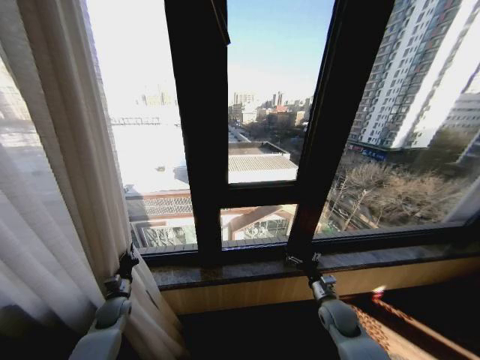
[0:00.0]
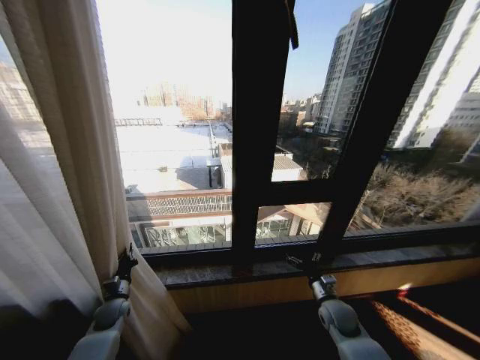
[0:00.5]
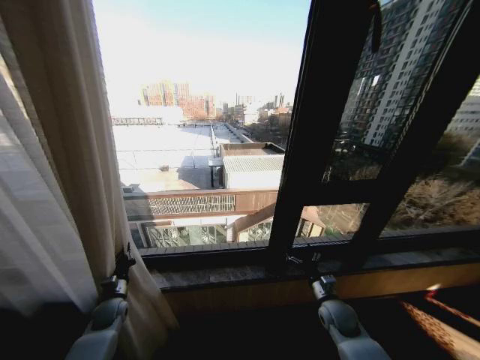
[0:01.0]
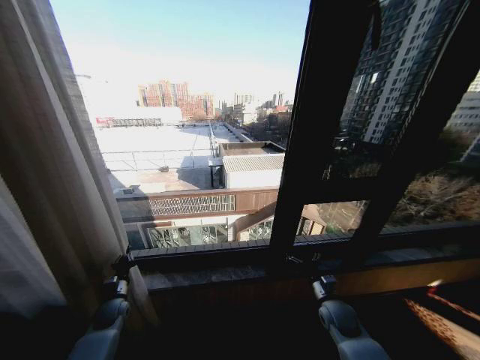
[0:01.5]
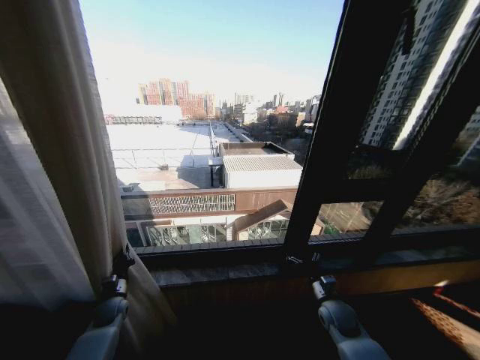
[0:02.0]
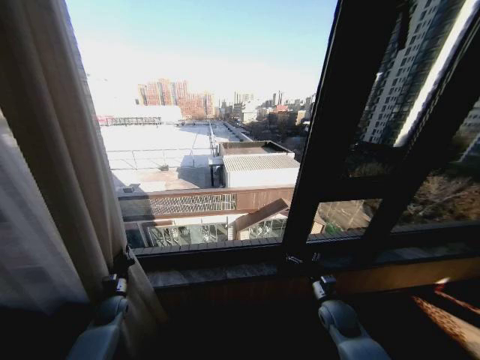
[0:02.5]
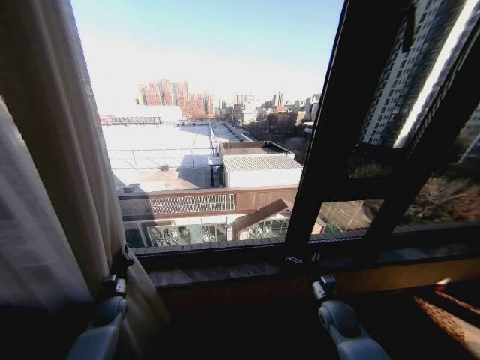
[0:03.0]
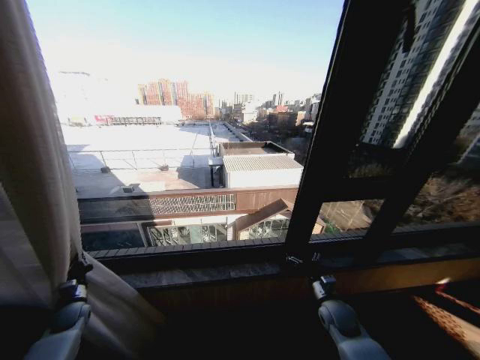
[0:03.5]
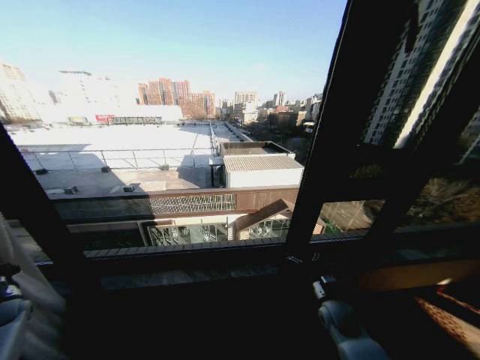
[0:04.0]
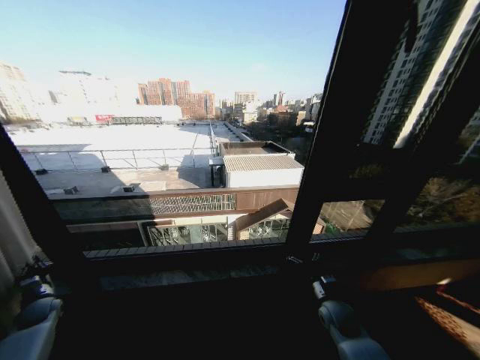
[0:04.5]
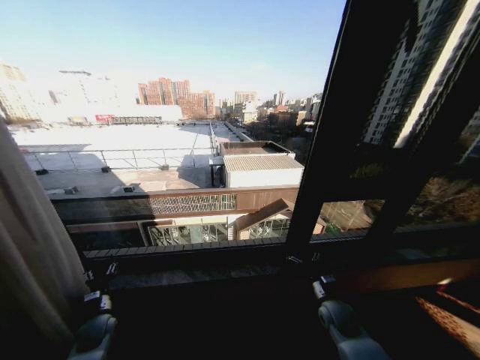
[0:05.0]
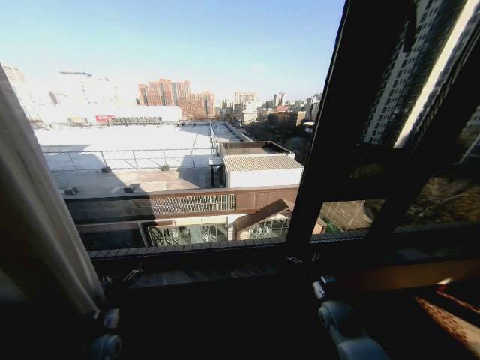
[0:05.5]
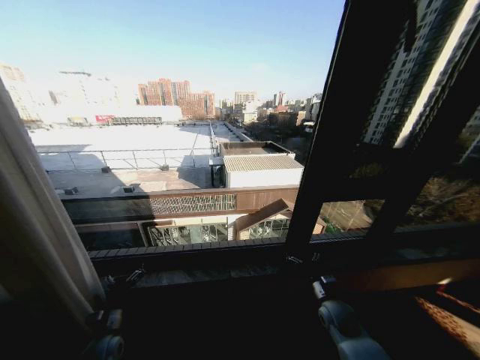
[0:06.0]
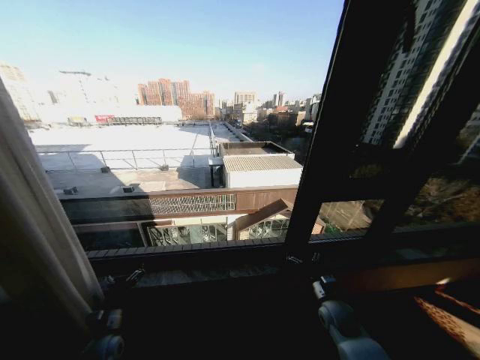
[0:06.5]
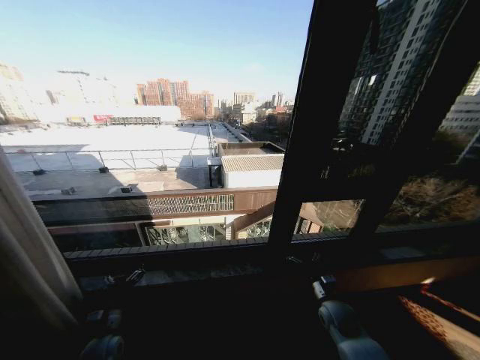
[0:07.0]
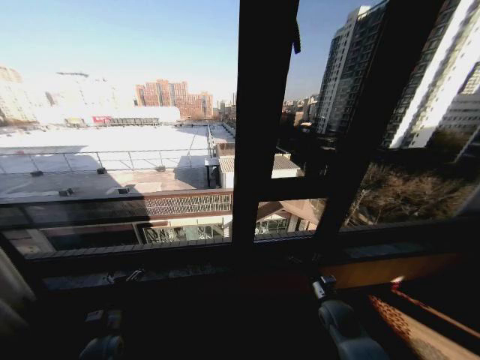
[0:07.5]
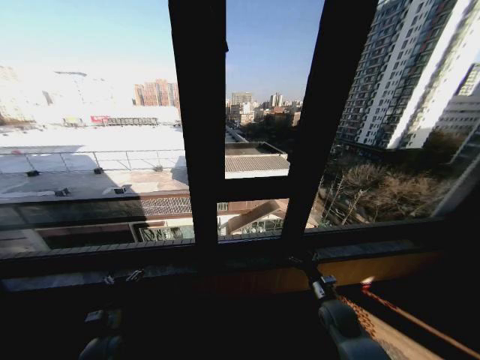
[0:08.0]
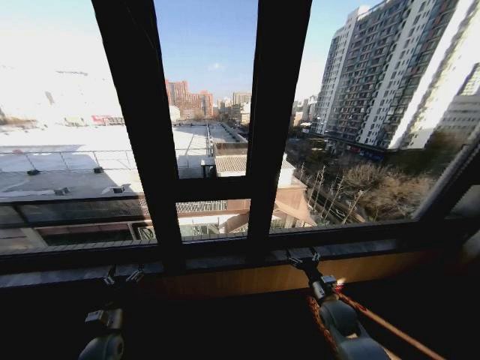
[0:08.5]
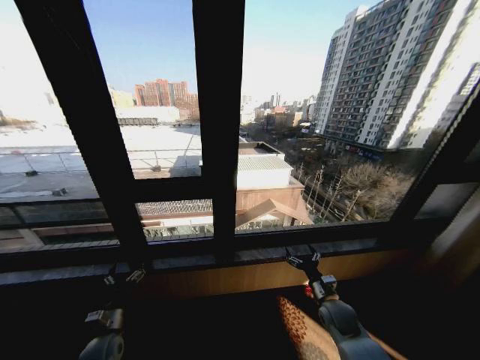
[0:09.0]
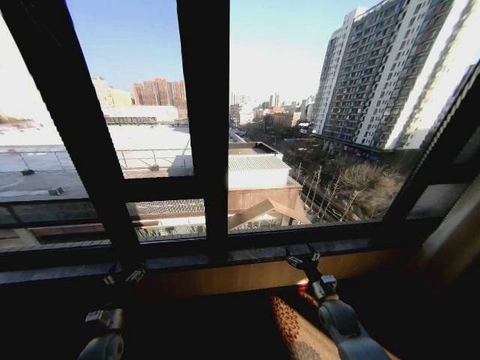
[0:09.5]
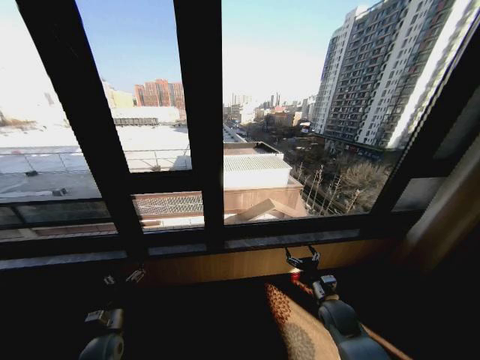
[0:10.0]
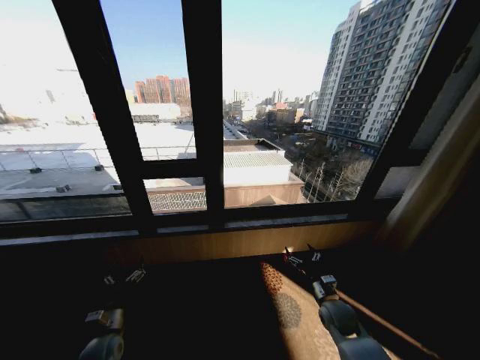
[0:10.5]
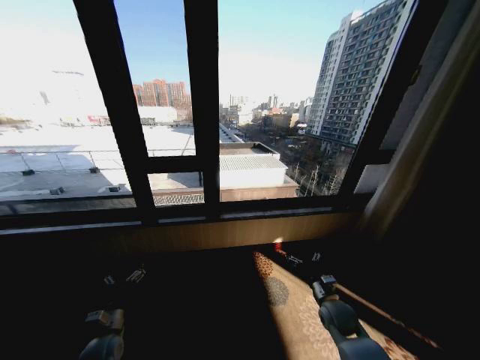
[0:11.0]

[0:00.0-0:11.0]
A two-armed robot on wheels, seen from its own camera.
Task of the whole recording: Open the curtains by pulling them apart, changing their state from closed to fully open.
2.0 to 3.5 s: The left gripper shifts roughly 10 cm to the left.
3.5 to 5.5 s: The left gripper moves to the right and backward, roughly 15 cm, and opens its fingers.

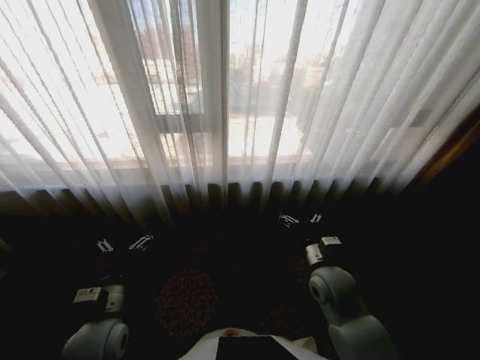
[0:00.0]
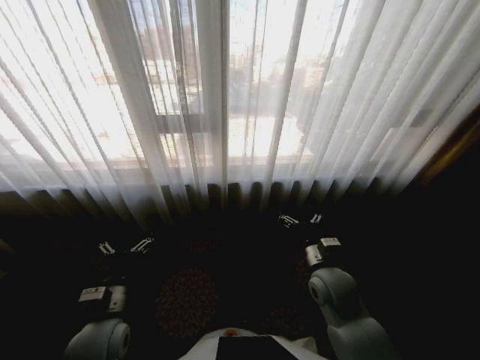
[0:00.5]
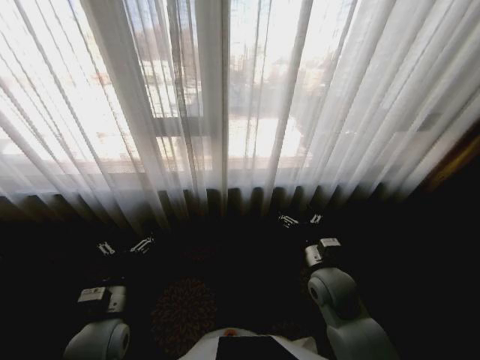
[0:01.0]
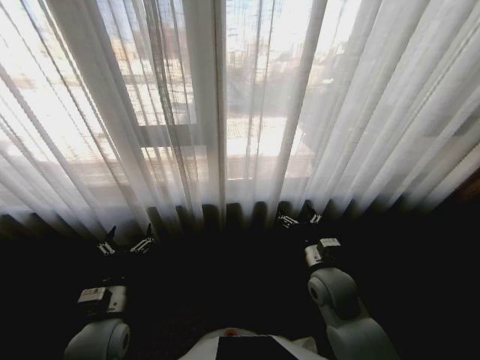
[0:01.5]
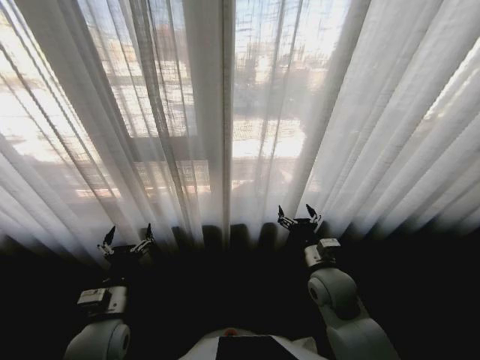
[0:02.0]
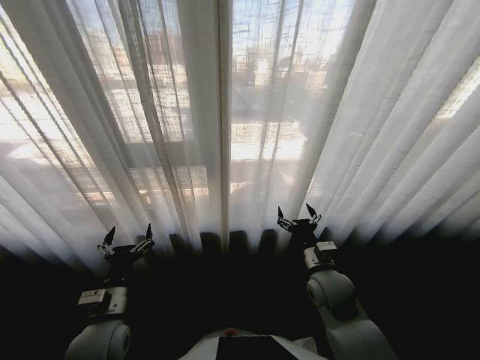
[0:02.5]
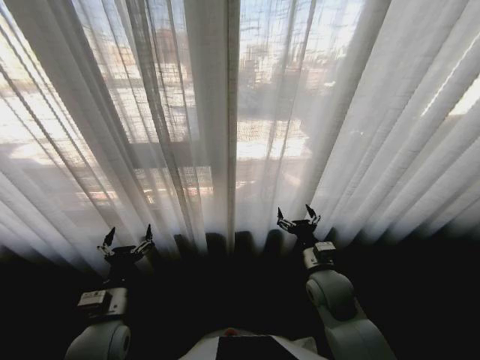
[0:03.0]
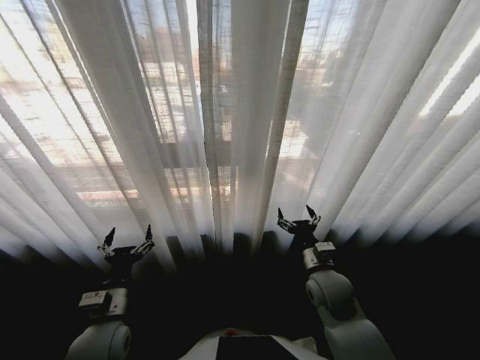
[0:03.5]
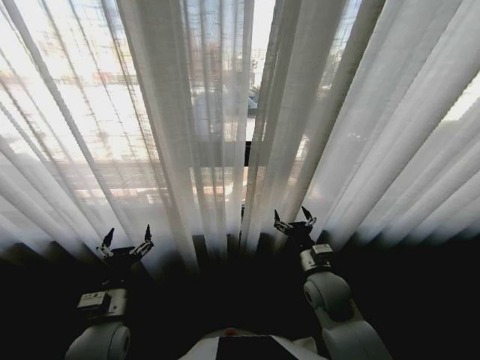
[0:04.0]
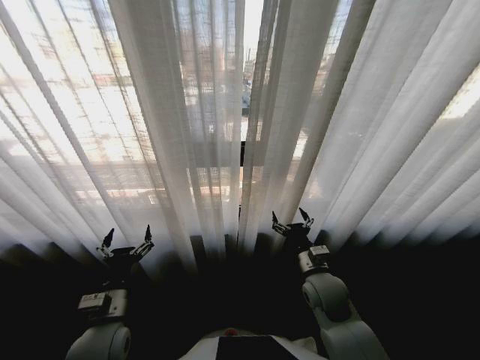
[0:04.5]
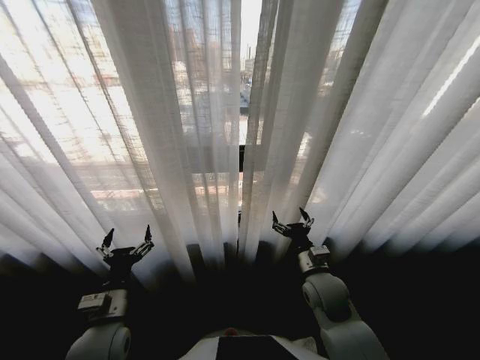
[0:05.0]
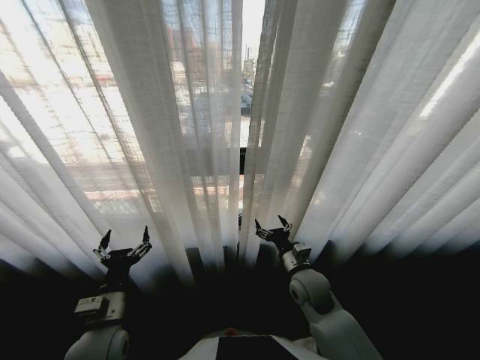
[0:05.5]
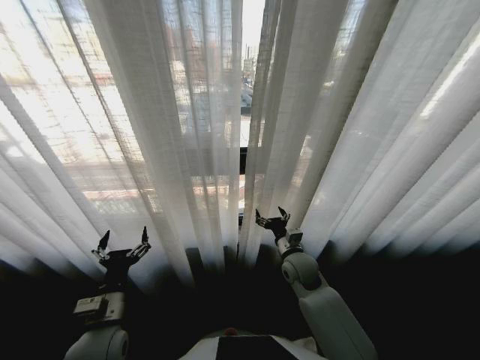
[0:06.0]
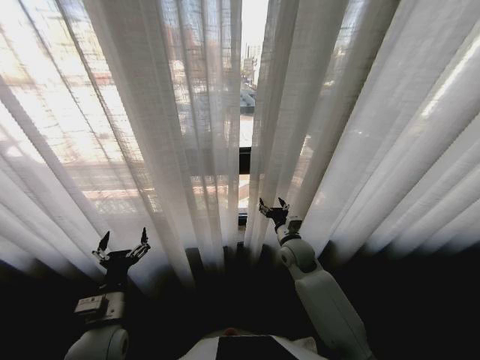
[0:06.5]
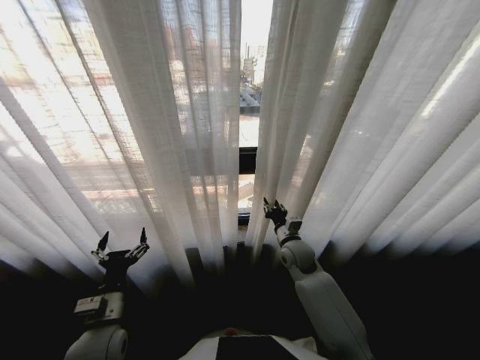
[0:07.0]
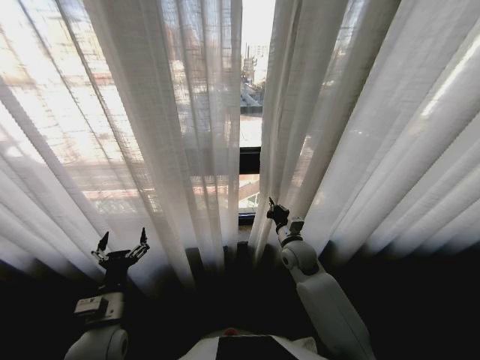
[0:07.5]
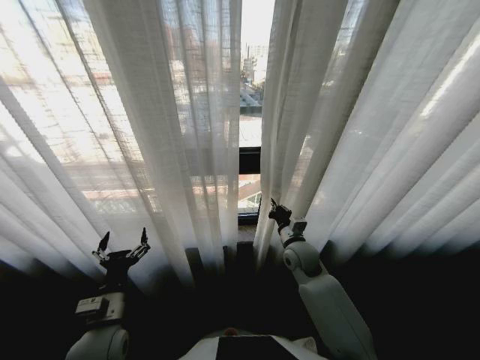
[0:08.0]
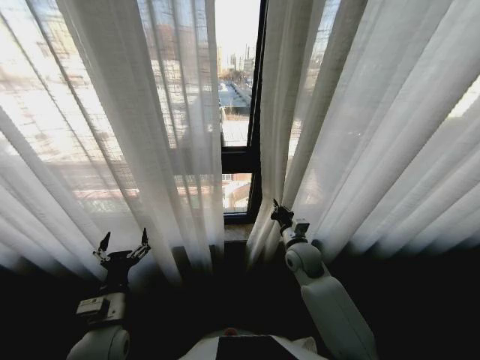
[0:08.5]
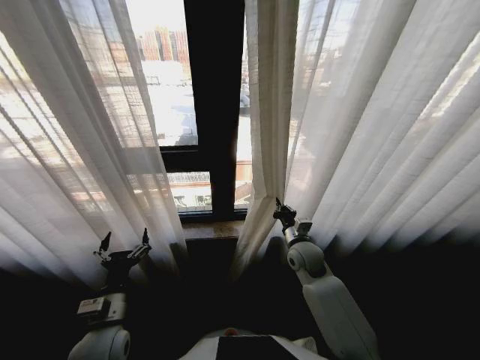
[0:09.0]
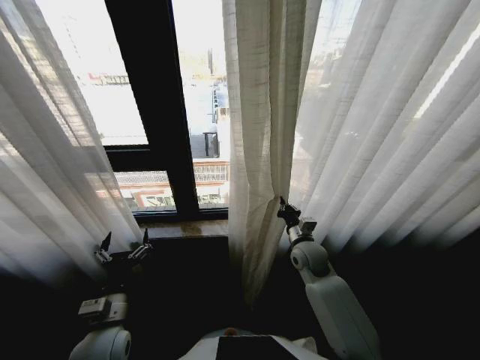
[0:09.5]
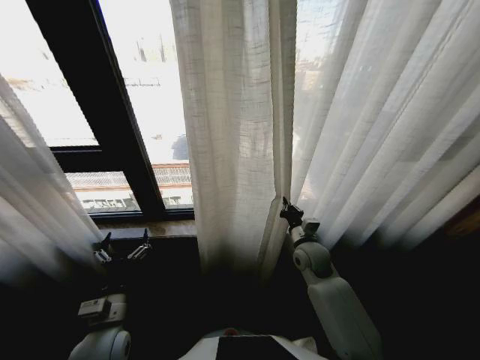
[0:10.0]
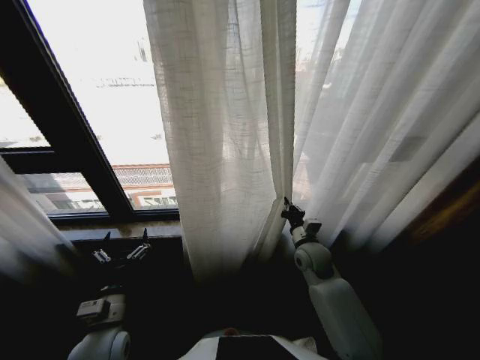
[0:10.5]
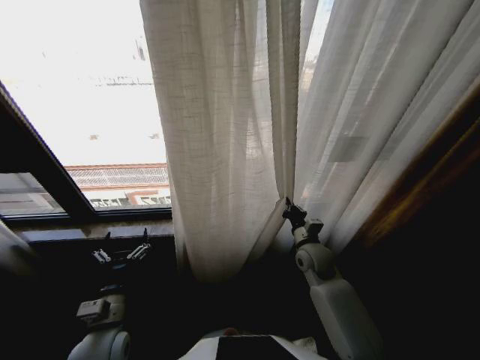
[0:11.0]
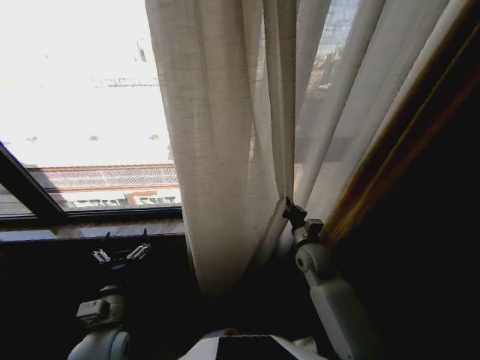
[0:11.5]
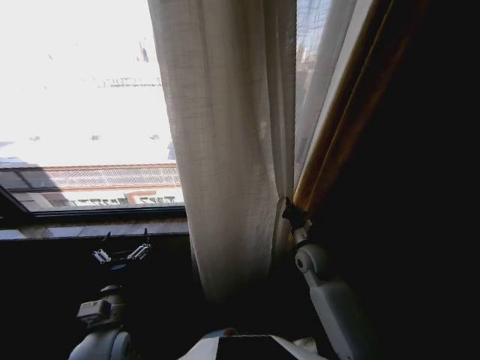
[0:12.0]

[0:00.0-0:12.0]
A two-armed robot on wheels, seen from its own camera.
Task of the whole recording: Open the curtains by pulling them apart, changing their state from closed to fully open.
4.0 to 6.0 s: The right gripper travels forward by about 5 cm.
6.0 to 8.0 s: The right gripper closes.

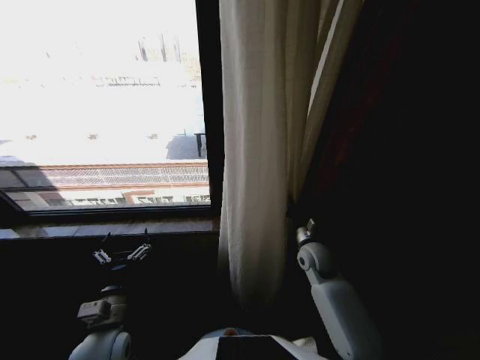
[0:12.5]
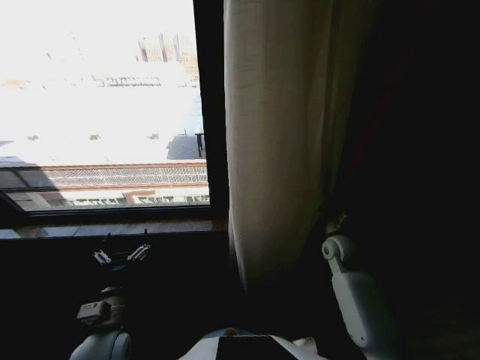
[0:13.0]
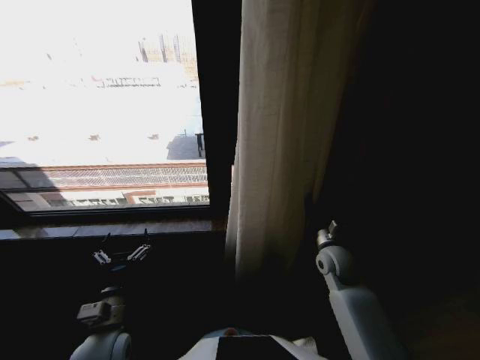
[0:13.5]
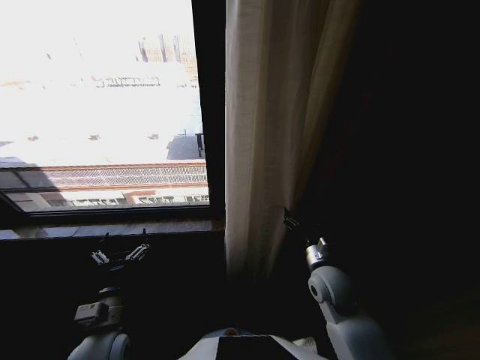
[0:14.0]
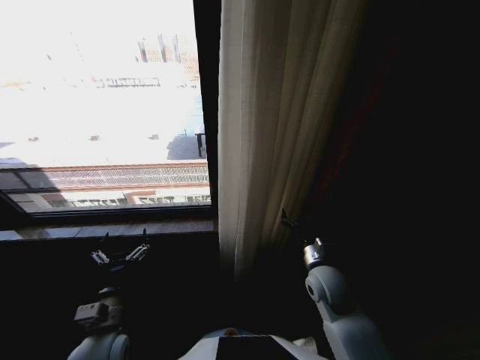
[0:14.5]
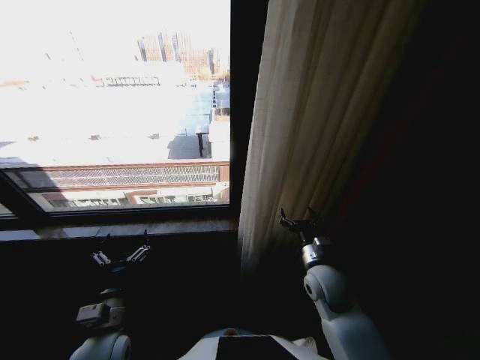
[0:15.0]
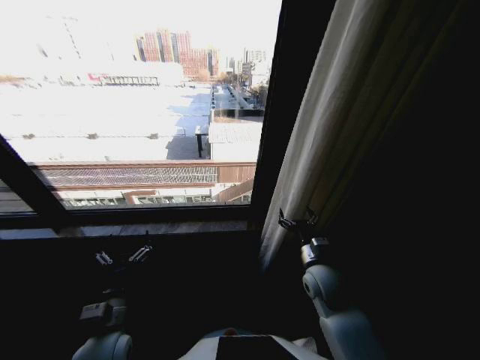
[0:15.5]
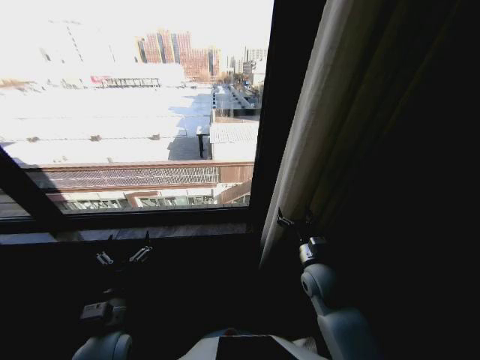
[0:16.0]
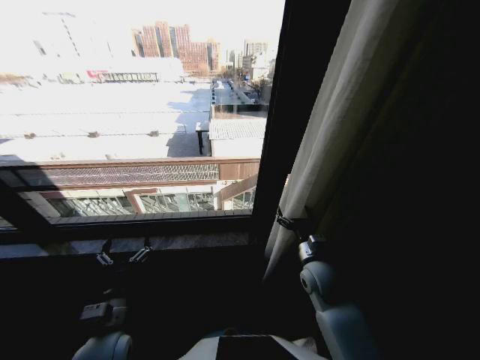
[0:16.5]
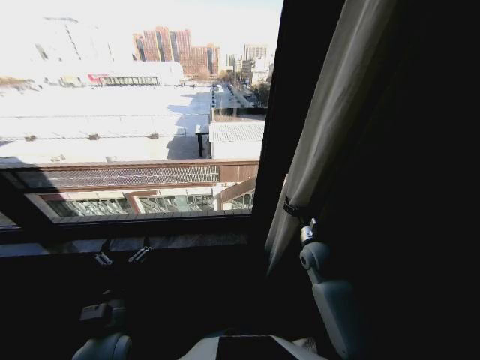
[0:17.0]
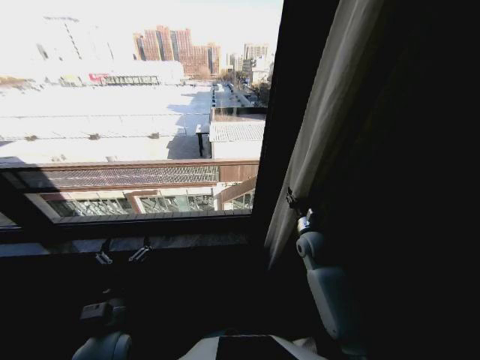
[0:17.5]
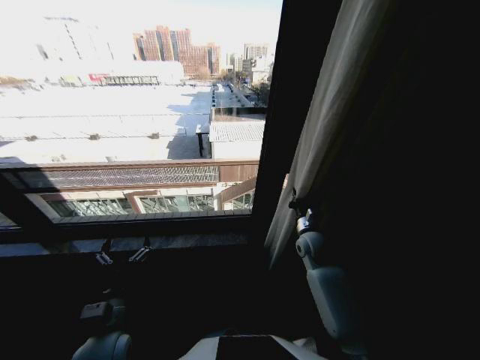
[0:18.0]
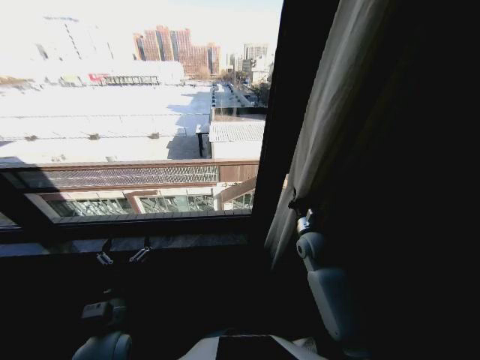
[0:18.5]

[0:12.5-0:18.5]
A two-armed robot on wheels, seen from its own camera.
Task of the whole recording: Open the curtains by pulling them apart, changing their state from closed to fully open.
12.5 to 14.5 s: The right gripper shifts approximately 10 cm backward, and opens up.
16.5 to 18.5 s: The right gripper travels forward by some 10 cm, and closes.
